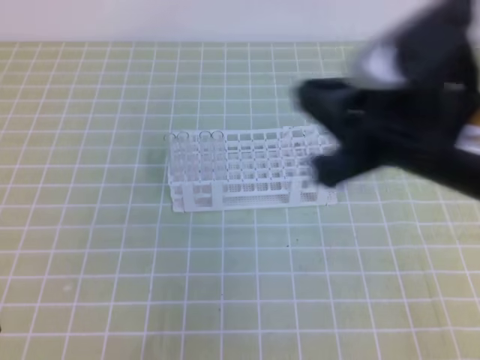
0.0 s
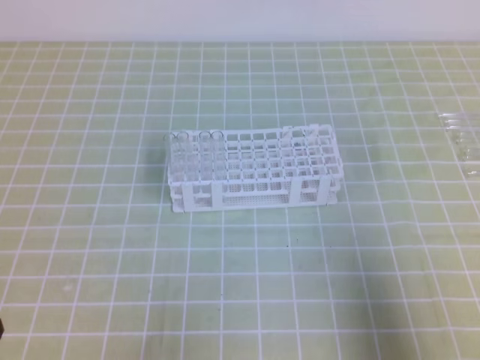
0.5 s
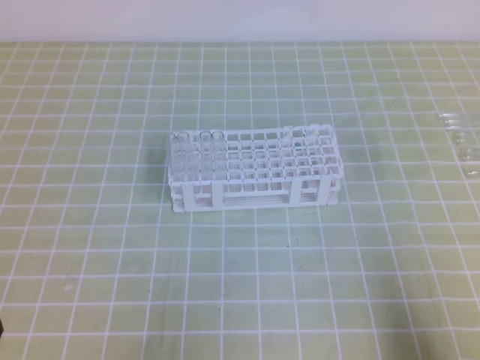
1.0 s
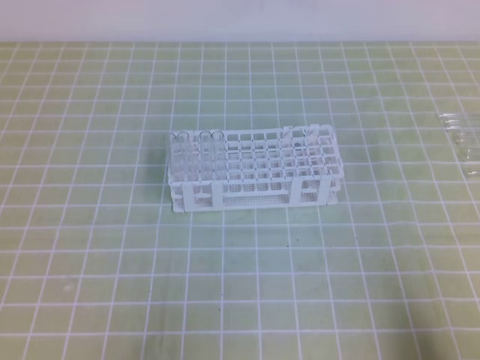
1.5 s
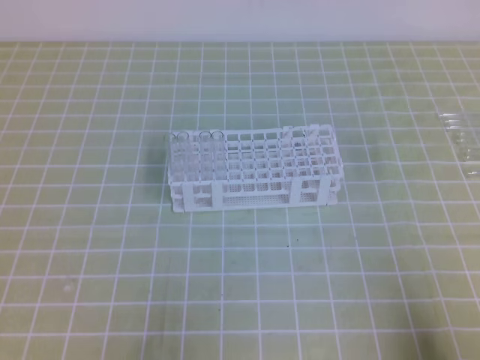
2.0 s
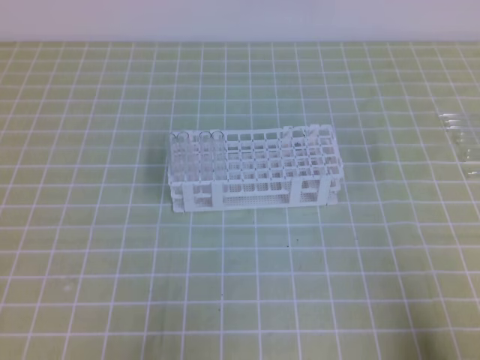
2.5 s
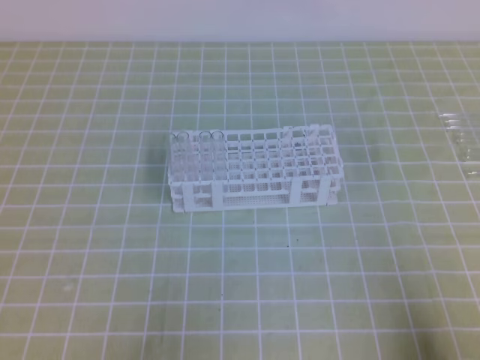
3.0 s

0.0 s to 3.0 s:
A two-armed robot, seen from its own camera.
0.0 to 1.5 s: The right gripper moves downward, to the right and backward, some 25 cm.

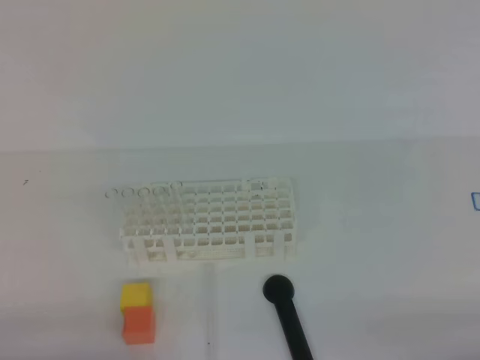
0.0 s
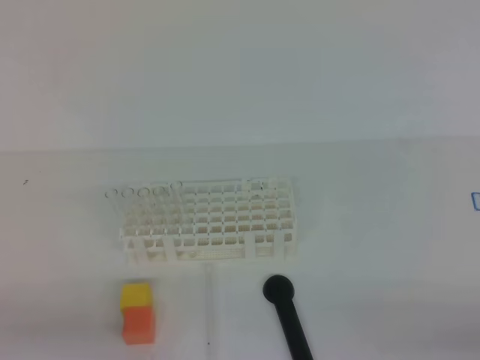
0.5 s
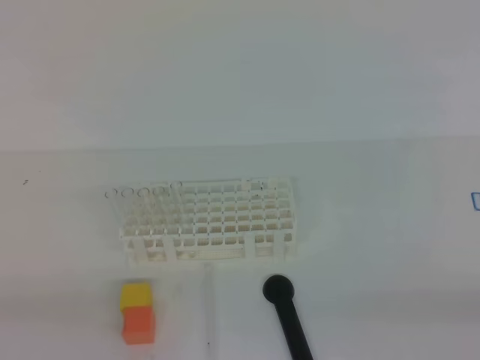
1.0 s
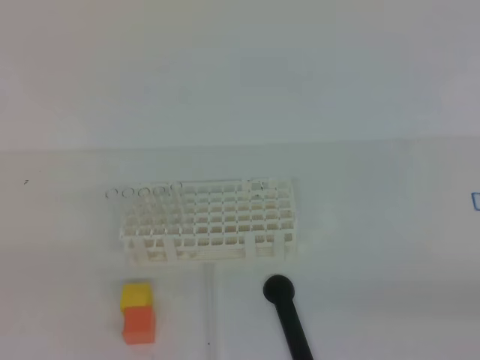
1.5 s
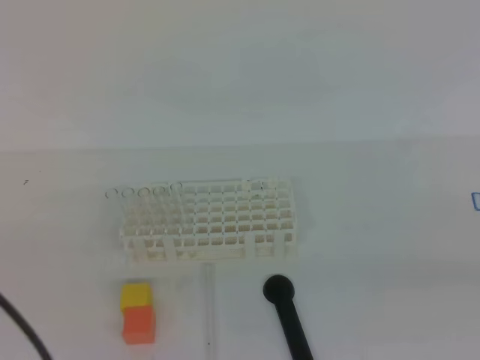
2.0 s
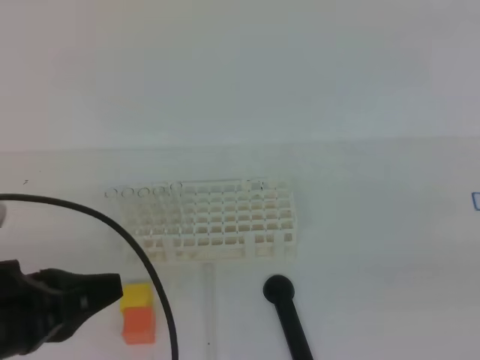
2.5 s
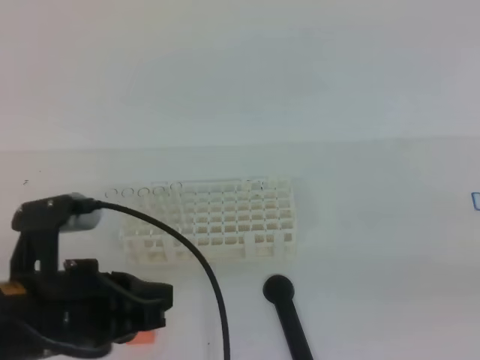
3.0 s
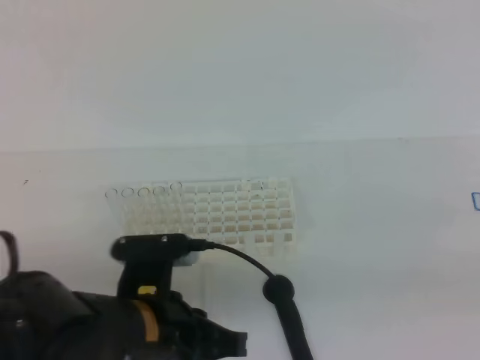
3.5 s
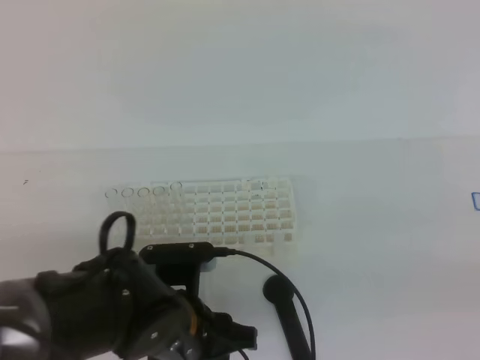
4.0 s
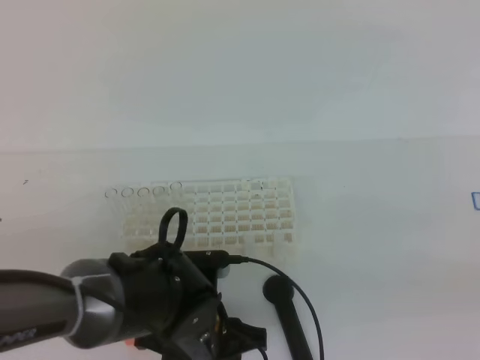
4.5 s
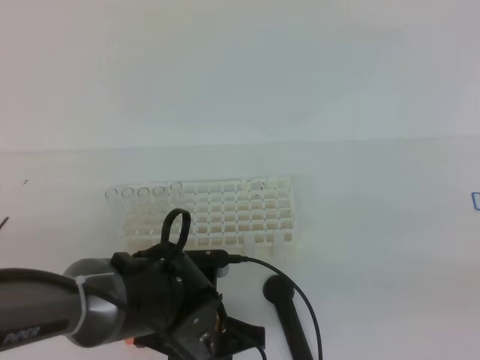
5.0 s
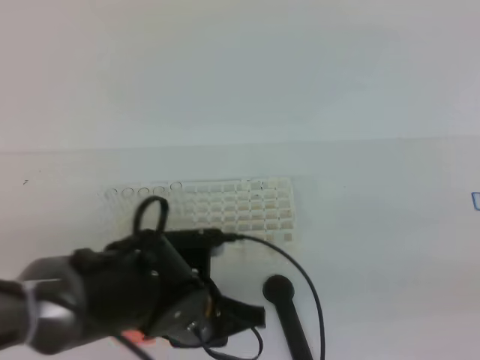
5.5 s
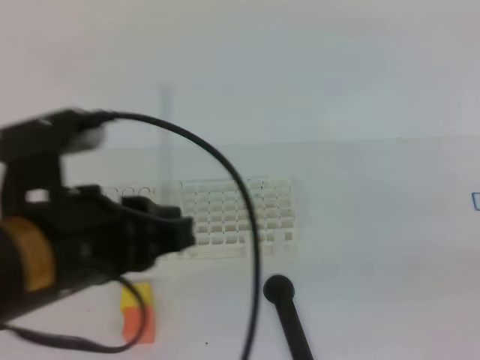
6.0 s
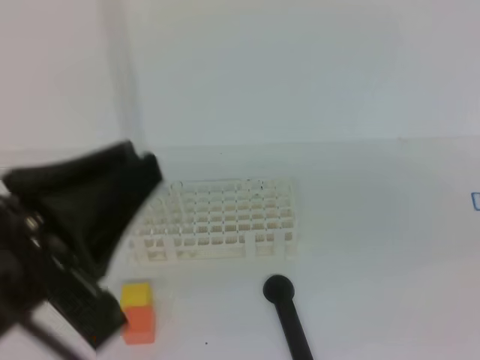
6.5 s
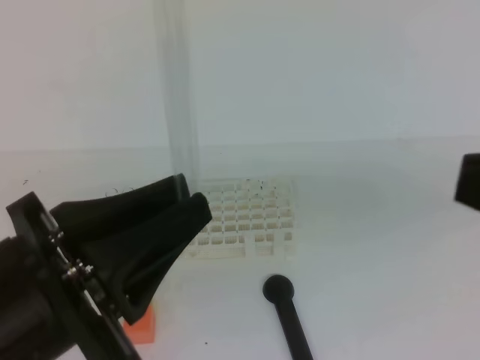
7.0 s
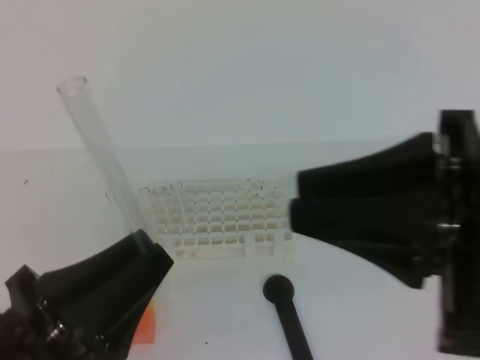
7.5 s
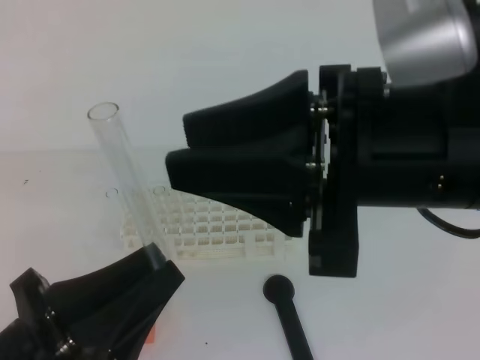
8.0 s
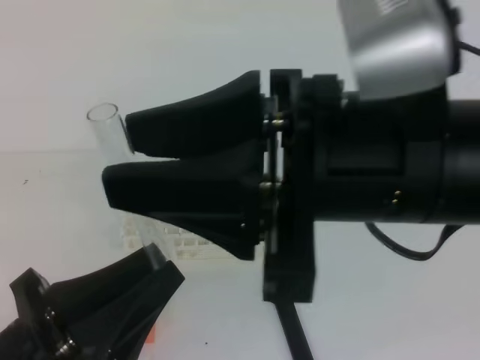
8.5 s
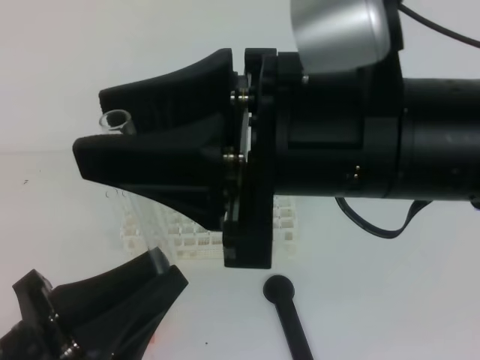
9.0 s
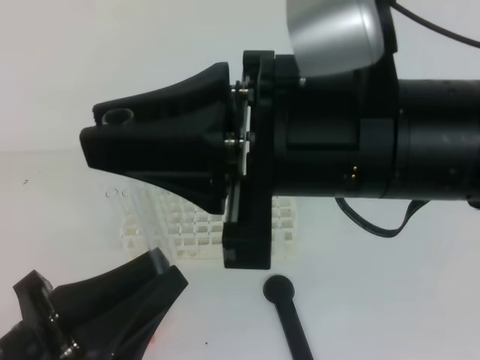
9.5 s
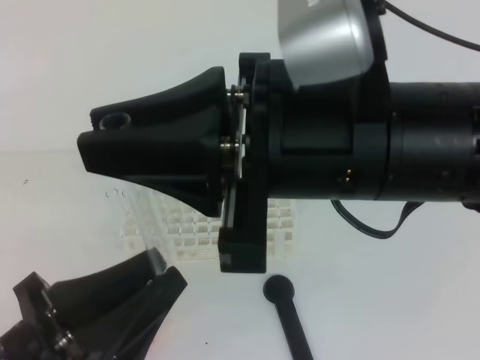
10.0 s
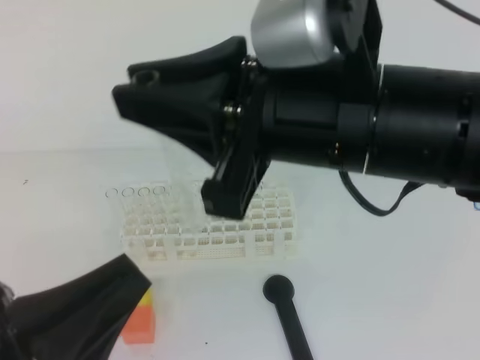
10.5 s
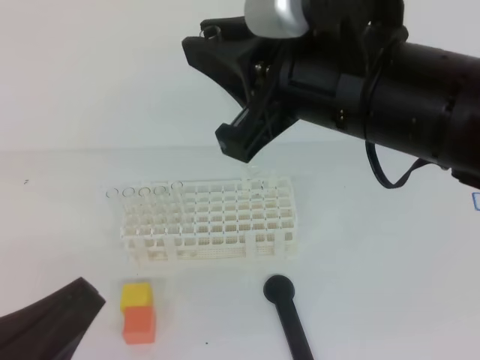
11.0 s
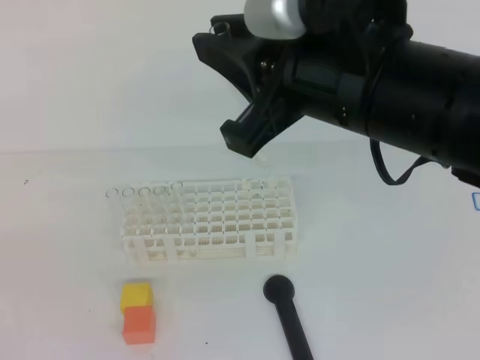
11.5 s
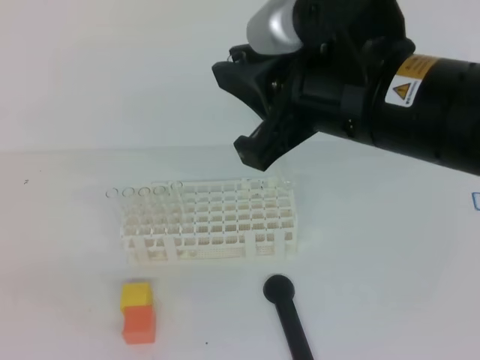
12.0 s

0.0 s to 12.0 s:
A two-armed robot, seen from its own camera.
2.0 to 4.0 s: The left gripper heads to the right, downward and forward, covering roughly 25 cm, and opens.
4.0 to 6.0 s: The left gripper heads upward, covering some 15 cm, and closes its fingers.
6.0 to 8.0 s: The left gripper heads backward and downward, covering approximately 10 cm. The right gripper travels to the left and forward by approximately 20 cm, and opens its fingers.
8.0 to 10.0 s: The left gripper opens its fingers. Meanwhile the right gripper closes.
10.0 to 12.0 s: The right gripper moves forward, some 5 cm; the left gripper shifts about 10 cm to the left, and closes up.

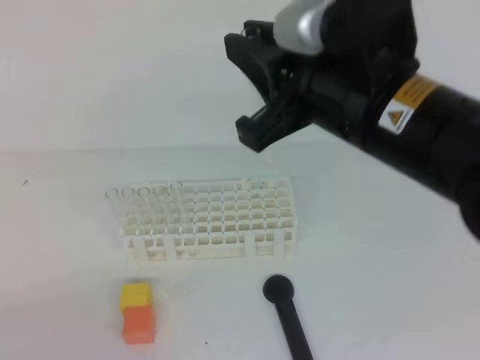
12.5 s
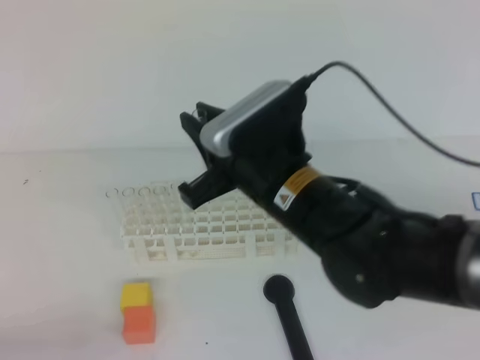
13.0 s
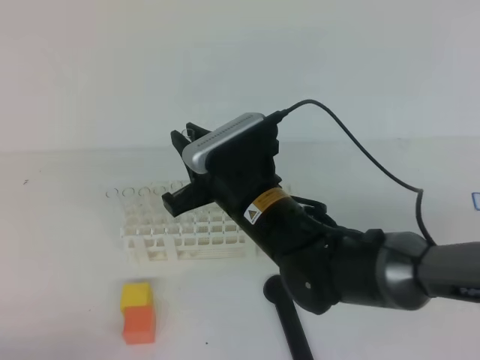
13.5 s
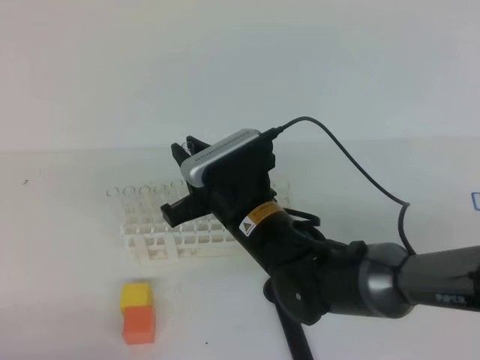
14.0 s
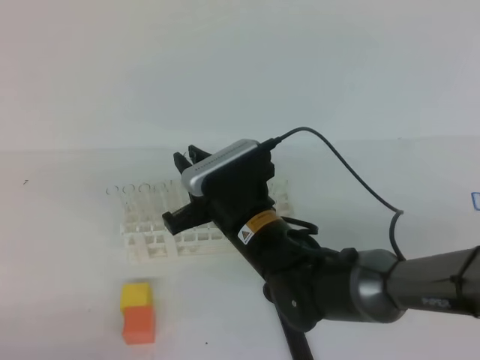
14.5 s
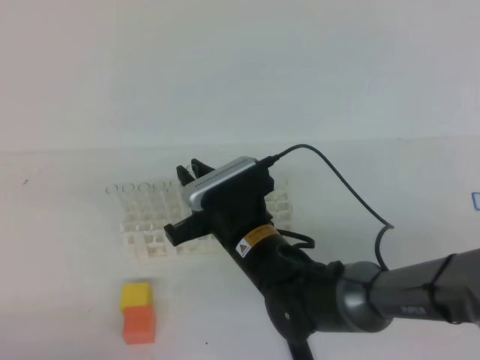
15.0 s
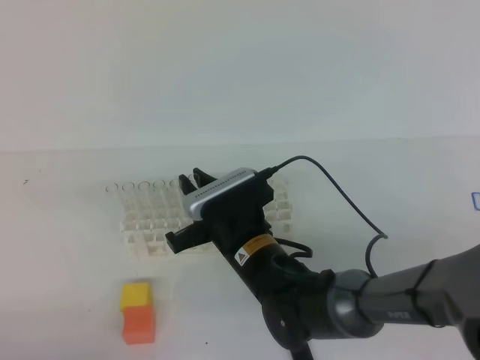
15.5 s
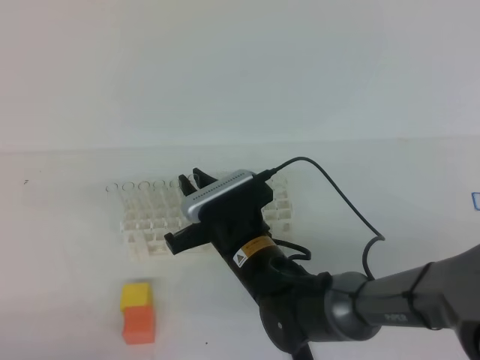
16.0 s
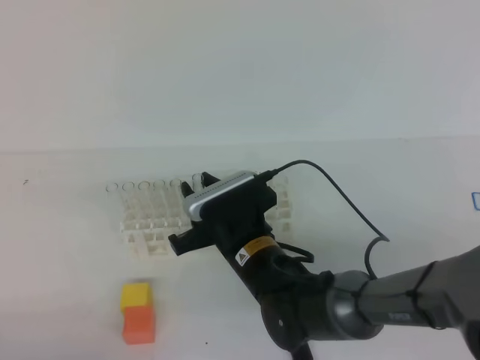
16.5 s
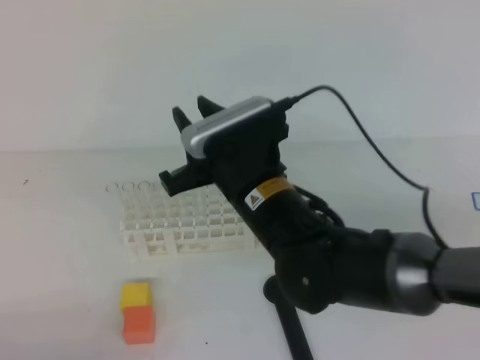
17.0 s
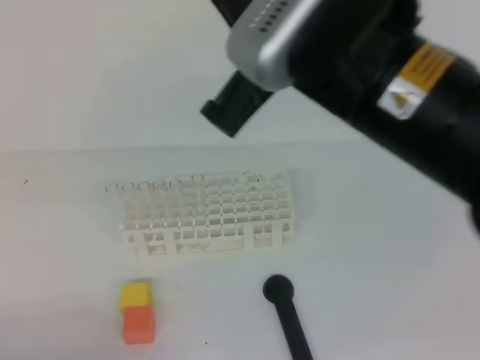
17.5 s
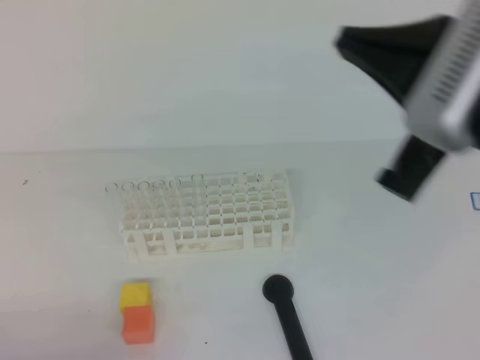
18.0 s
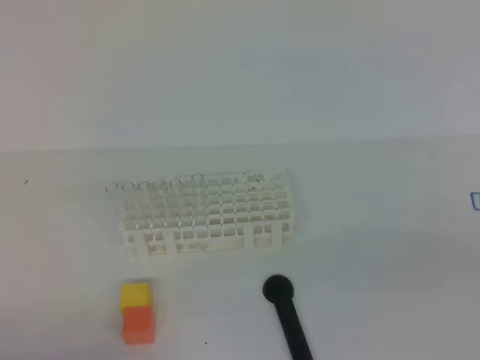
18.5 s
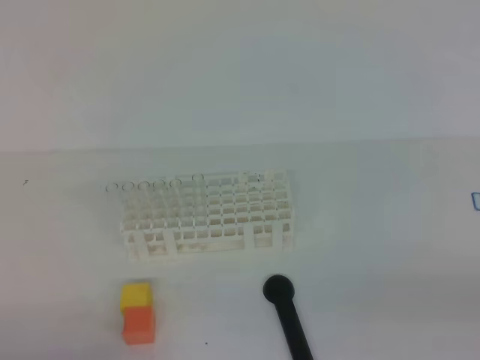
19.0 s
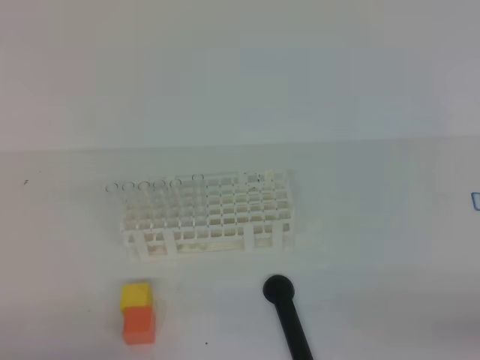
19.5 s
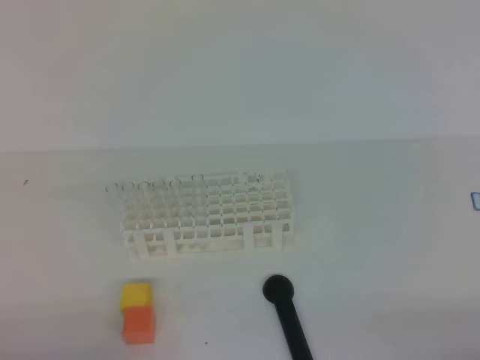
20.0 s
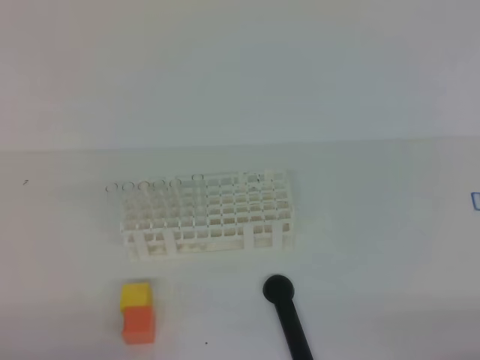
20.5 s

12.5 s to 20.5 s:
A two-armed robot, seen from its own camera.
12.5 to 14.5 s: The right gripper travels downward and to the left by roughly 20 cm. The left gripper moves downward, approximately 5 cm.
14.5 to 16.5 s: The right gripper opens up.
16.5 to 18.5 s: The right gripper is displaced to the right, backward and upward by some 40 cm, and closes its fingers.

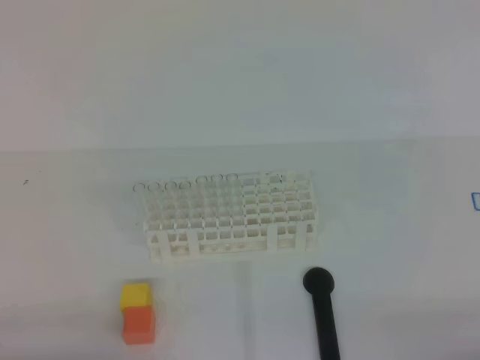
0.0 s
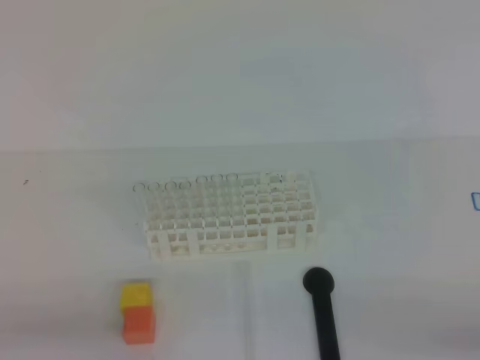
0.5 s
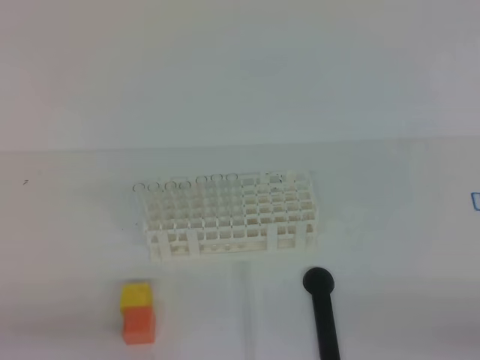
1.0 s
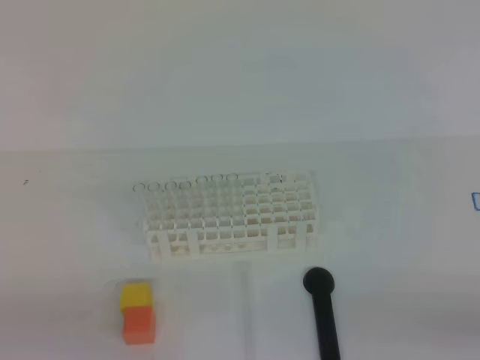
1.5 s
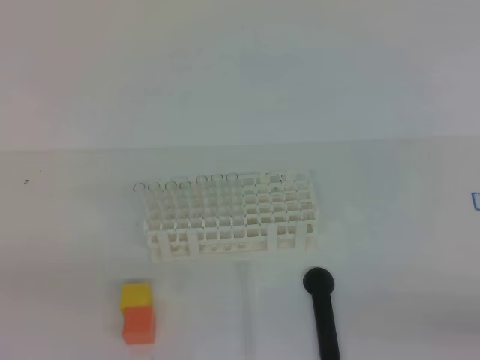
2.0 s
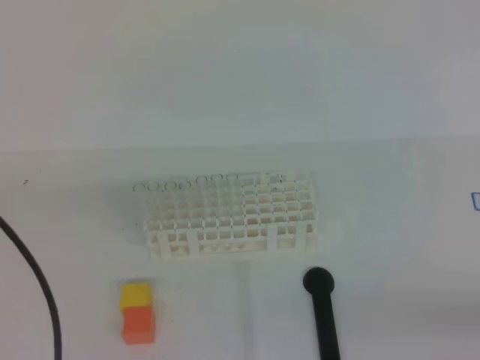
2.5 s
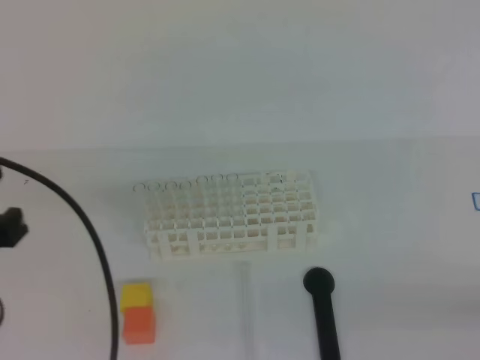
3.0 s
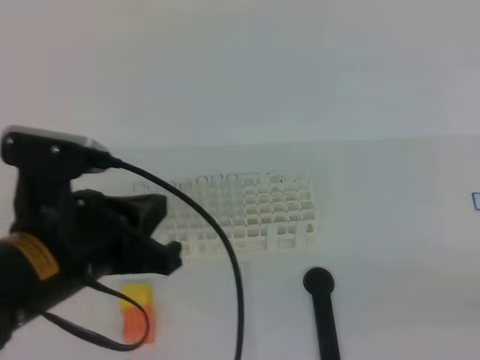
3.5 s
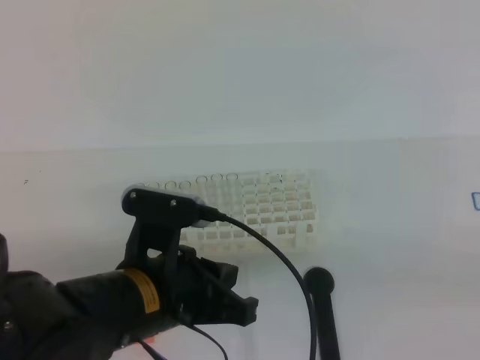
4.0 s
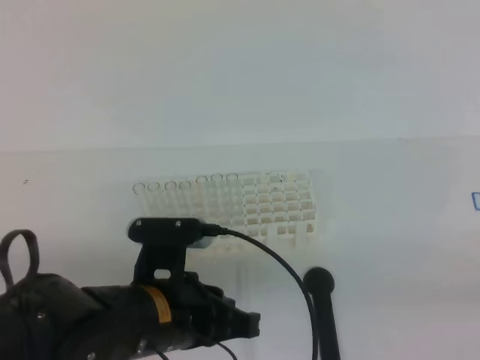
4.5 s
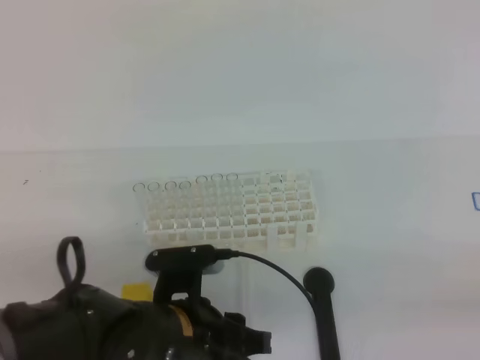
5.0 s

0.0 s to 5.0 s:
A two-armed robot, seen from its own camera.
0.0 to 2.5 s: The left gripper shifts some 15 cm upward.
2.5 to 5.0 s: The left gripper is displaced to the right and downward by some 25 cm, and opens its fingers.
